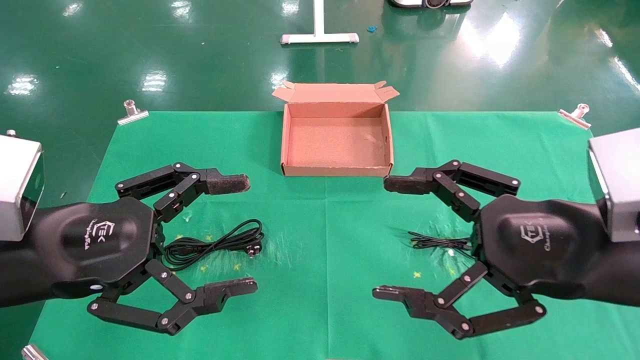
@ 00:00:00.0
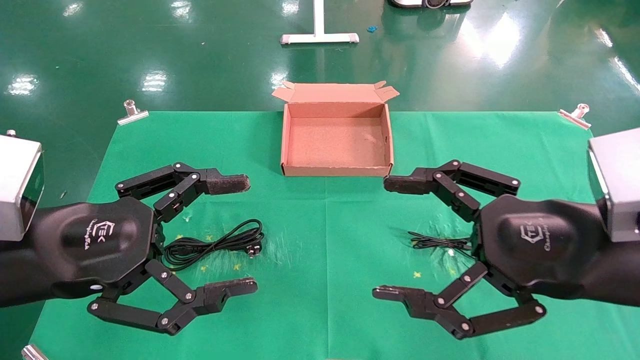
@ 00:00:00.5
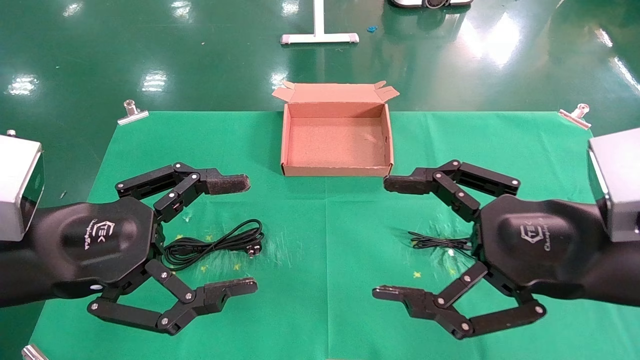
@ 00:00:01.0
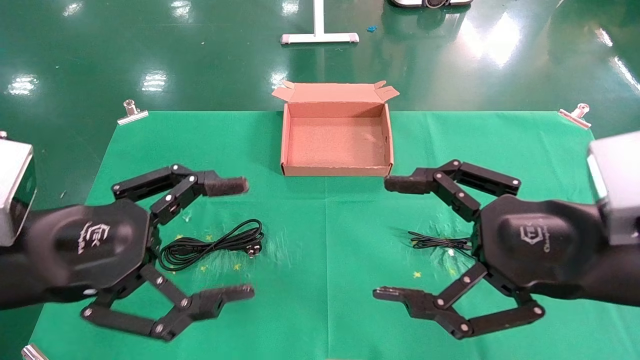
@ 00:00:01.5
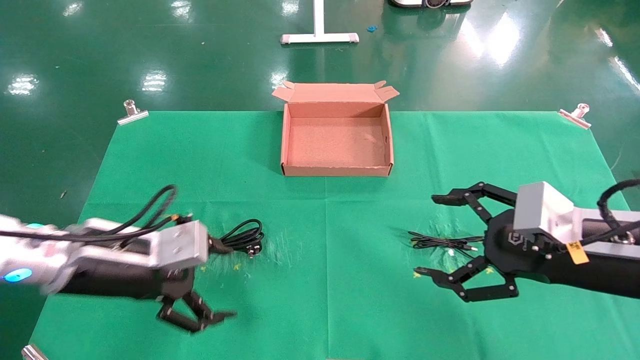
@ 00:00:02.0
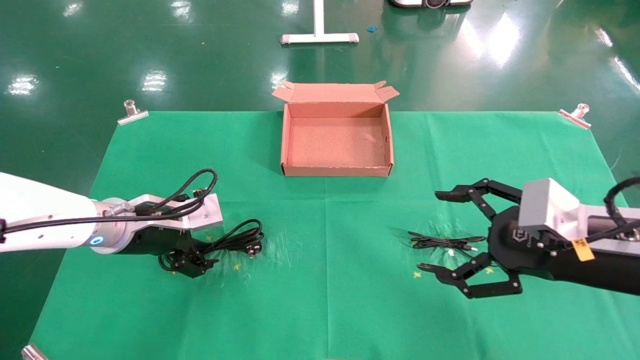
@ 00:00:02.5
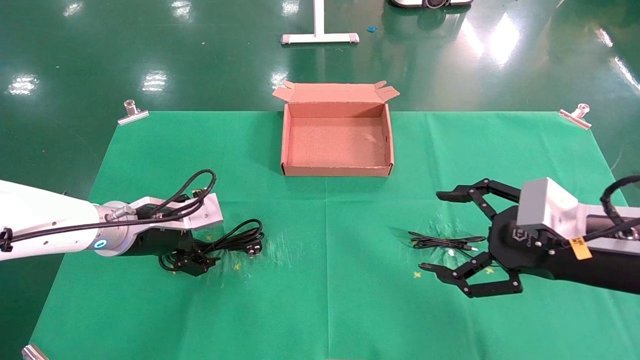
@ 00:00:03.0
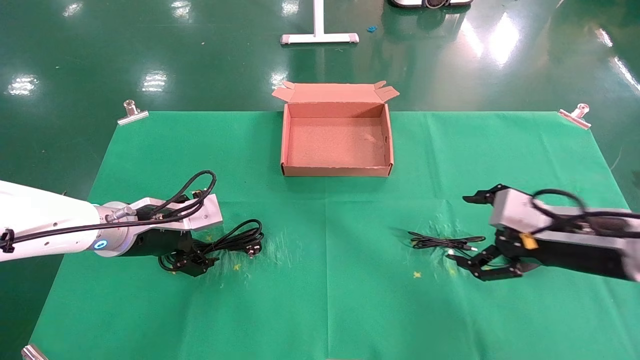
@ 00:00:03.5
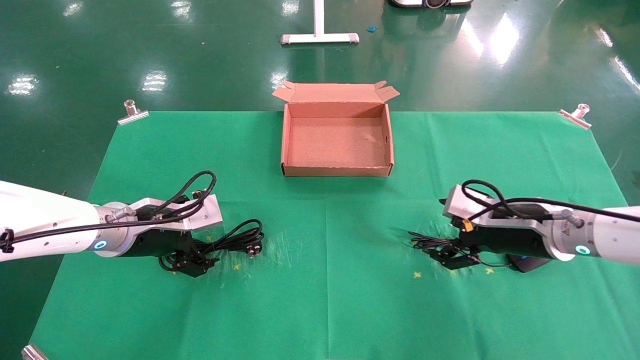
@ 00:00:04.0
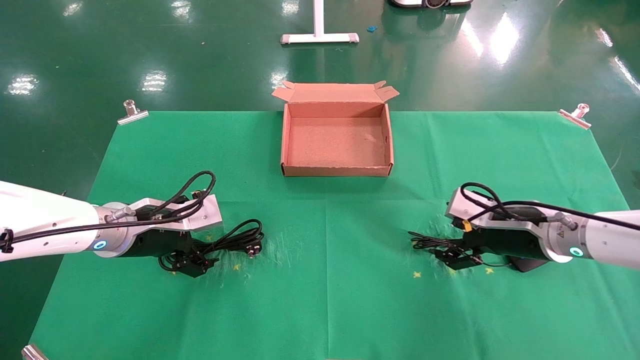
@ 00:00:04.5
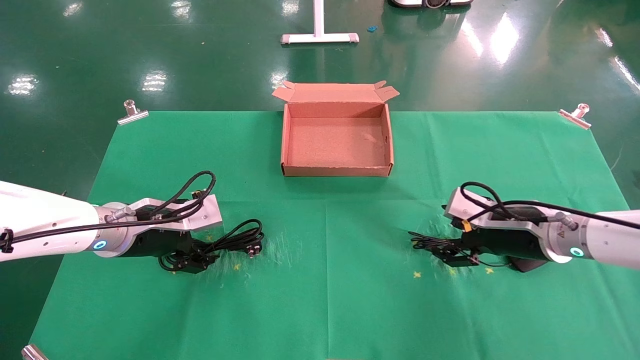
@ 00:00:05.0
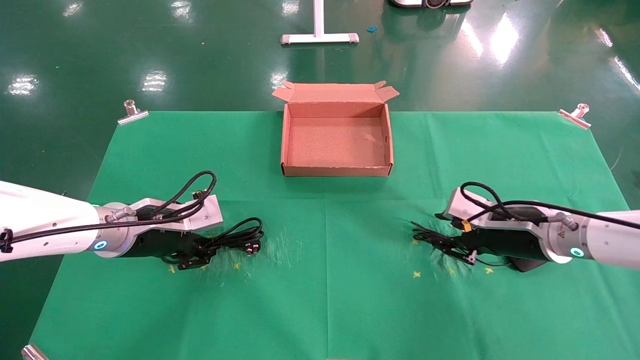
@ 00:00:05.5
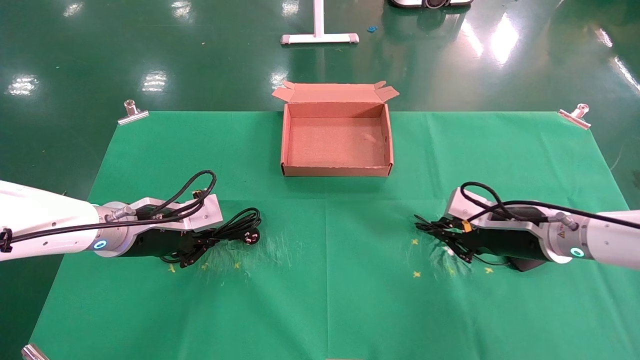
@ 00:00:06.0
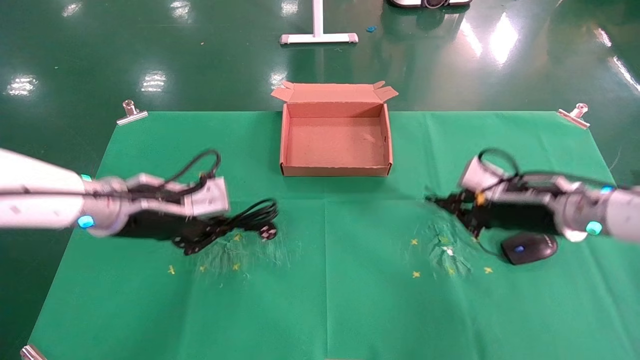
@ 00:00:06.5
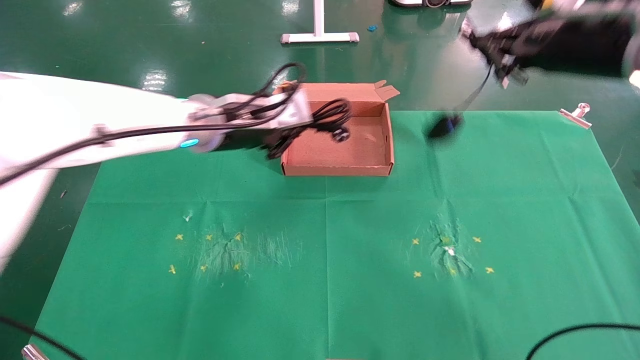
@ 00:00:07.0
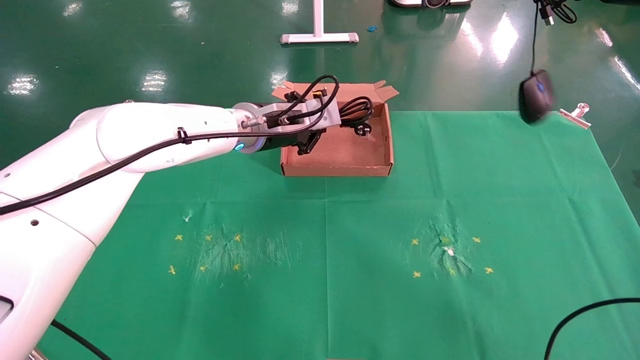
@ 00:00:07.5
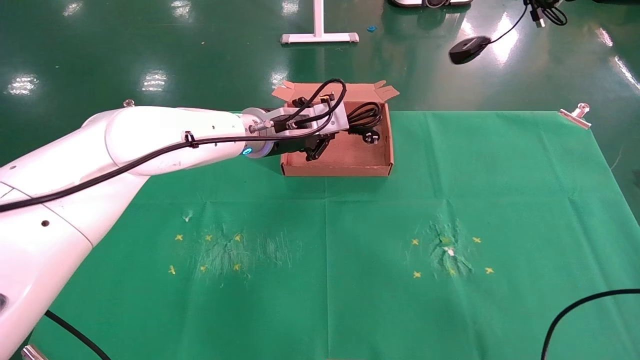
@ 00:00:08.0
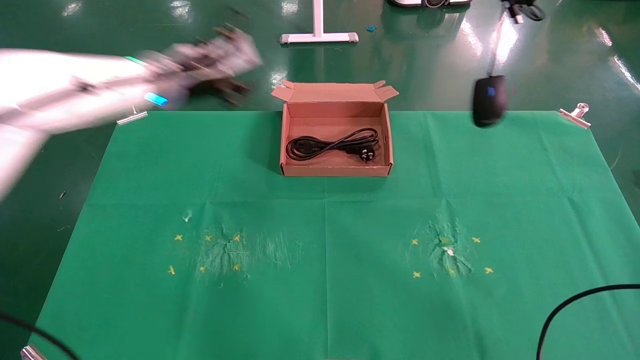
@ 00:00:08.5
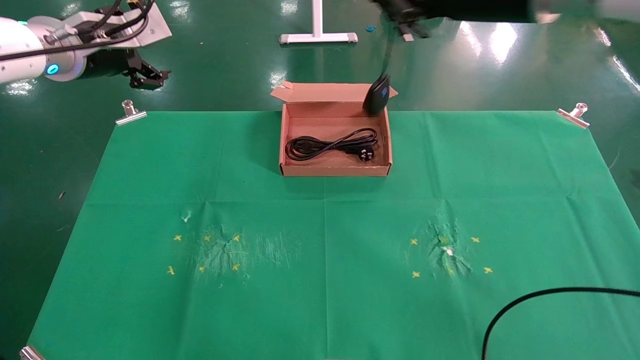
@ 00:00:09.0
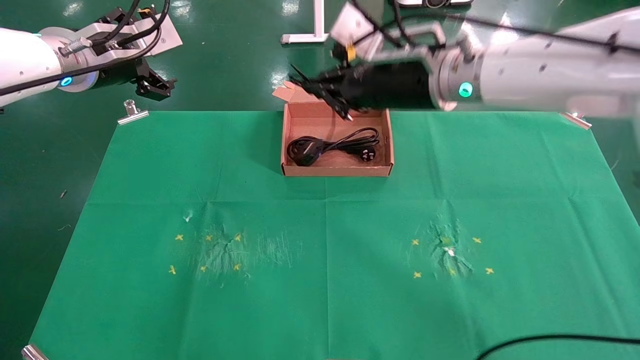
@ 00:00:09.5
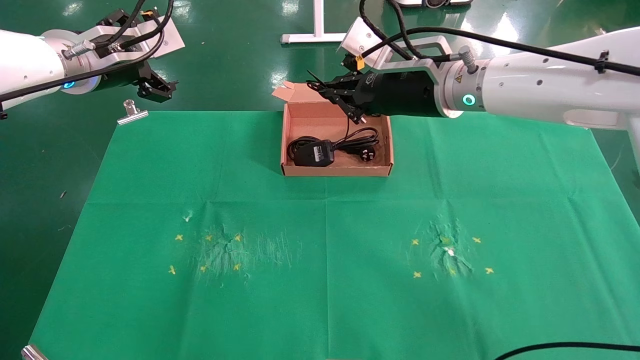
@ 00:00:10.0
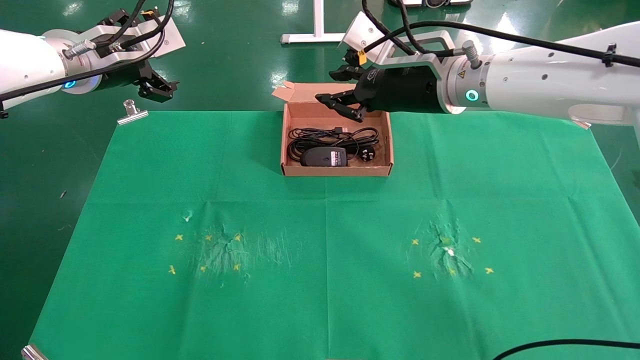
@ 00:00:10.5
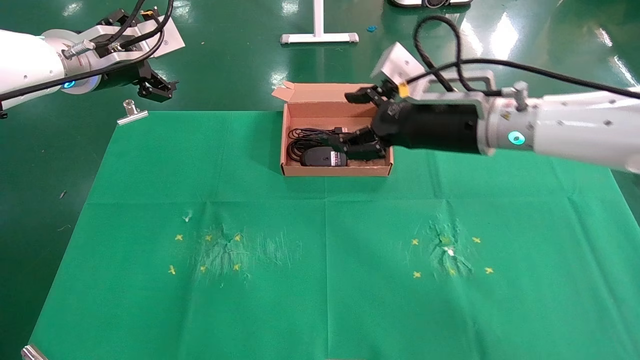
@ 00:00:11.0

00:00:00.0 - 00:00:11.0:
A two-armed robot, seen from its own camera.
Task of the whole recording: grasp data cable left put into box grasp mouse right put into box.
Step, 00:00:01.5 - 00:00:06.0: Simultaneously pick up the mouse and power cord from the accessory packaging area.
Step, 00:00:06.5 - 00:00:10.5: Place the mouse and power cord into the box.
00:00:00.0 - 00:00:02.0: The left gripper is displaced forward and downward by approximately 10 cm, while the right gripper shifts by approximately 10 cm.
00:00:02.0 - 00:00:03.5: The grippers both shift forward by about 5 cm.
00:00:03.5 - 00:00:05.5: The right gripper goes about 5 cm forward, and closes, while the left gripper closes.
00:00:05.5 - 00:00:07.5: The left gripper travels to the right, upward and forward by some 20 cm, and closes up. The right gripper moves upward, approximately 30 cm, and closes up.
00:00:07.5 - 00:00:09.0: The left gripper goes some 25 cm to the left and upward, and opens. The right gripper heads to the left, covering approximately 15 cm.
00:00:09.0 - 00:00:11.0: The right gripper heads downward, covering roughly 15 cm, and opens.

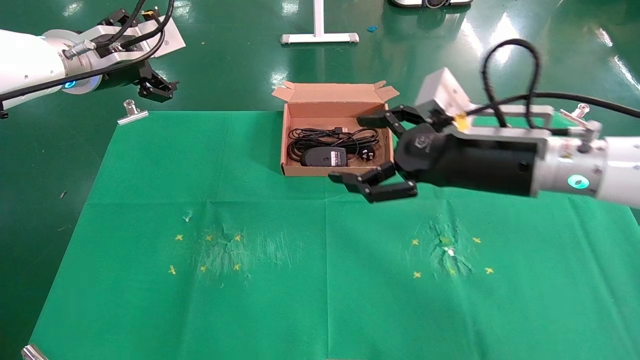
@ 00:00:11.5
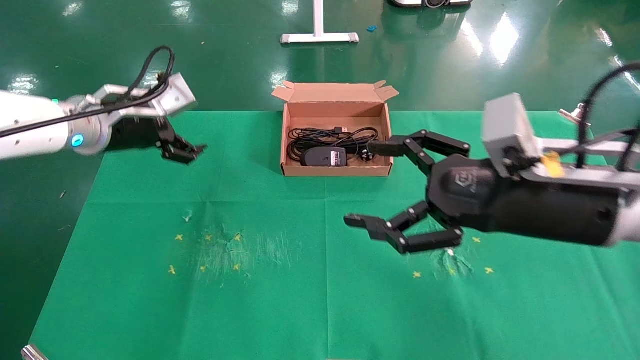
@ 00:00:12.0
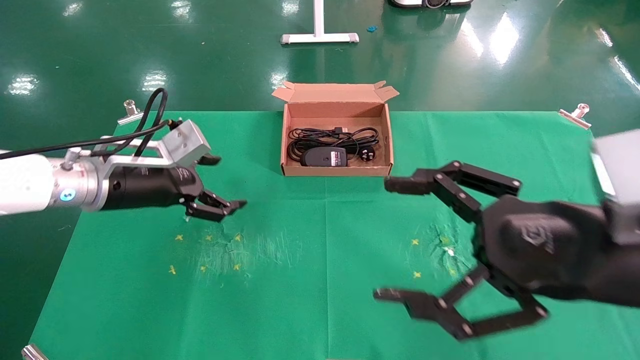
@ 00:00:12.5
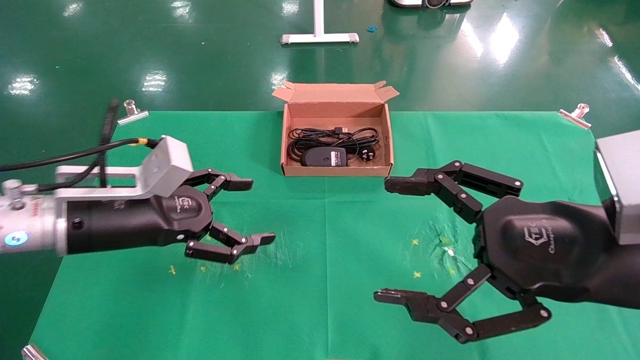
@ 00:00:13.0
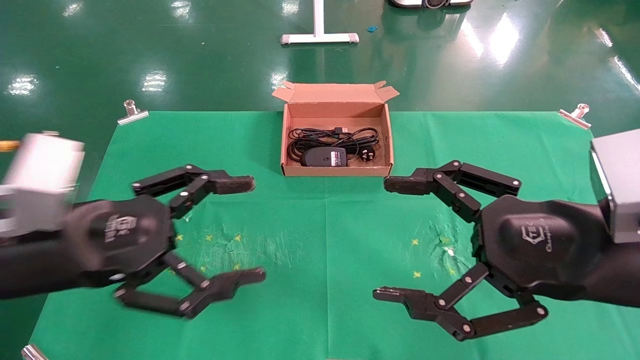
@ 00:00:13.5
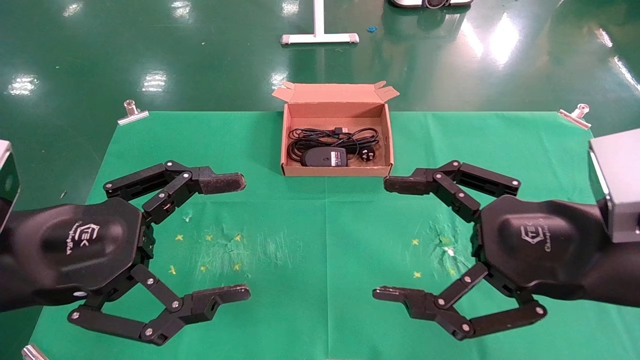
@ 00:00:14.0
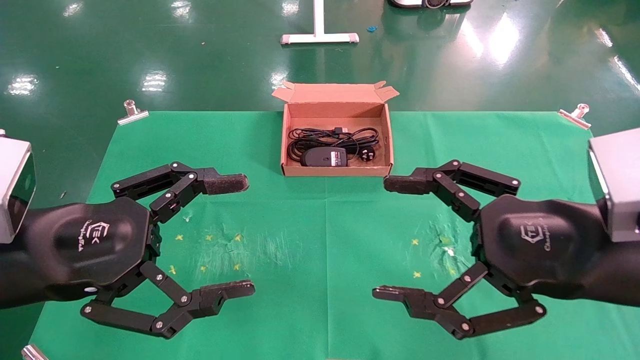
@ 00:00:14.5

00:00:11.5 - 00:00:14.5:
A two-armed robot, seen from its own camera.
Task of the whole recording: grasp data cable left put into box grasp mouse right put into box.
00:00:11.5 - 00:00:13.0: The left gripper goes about 20 cm downward and backward. Meanwhile the right gripper goes some 15 cm backward.
00:00:13.0 - 00:00:14.5: The left gripper is displaced backward by about 10 cm.
